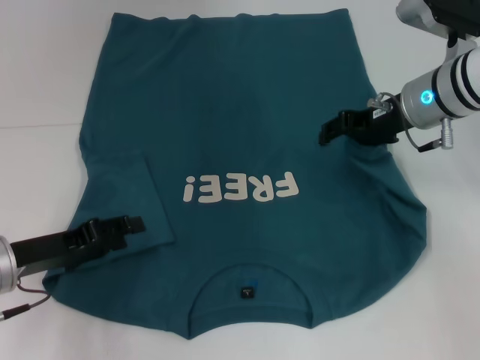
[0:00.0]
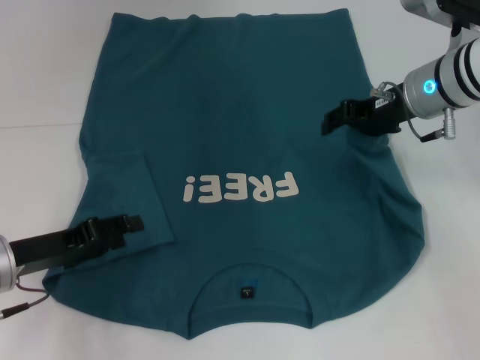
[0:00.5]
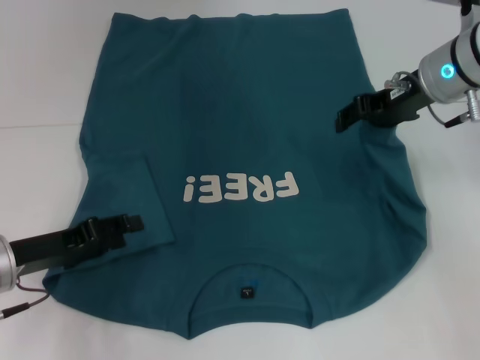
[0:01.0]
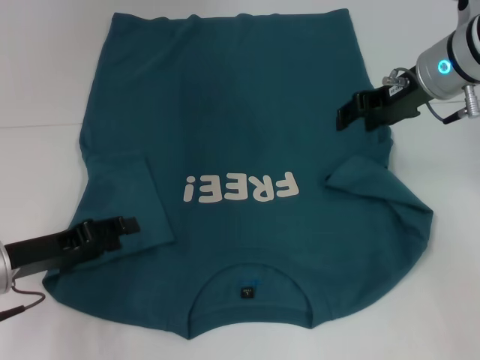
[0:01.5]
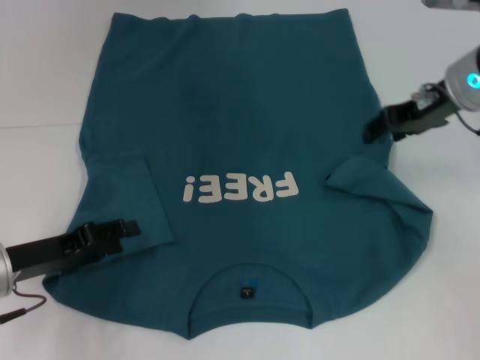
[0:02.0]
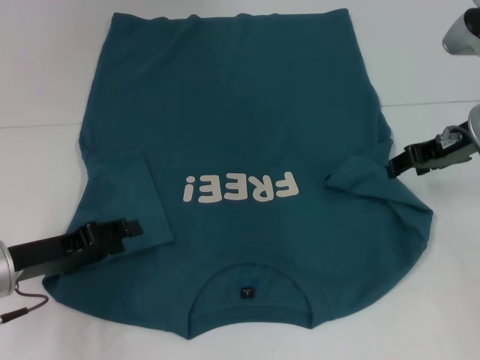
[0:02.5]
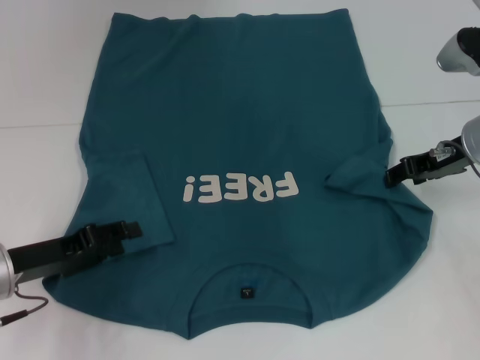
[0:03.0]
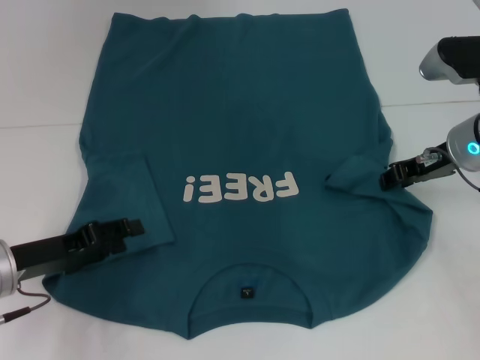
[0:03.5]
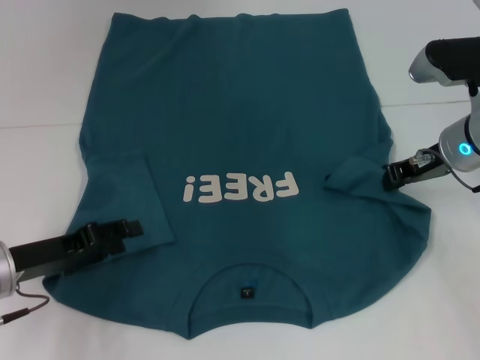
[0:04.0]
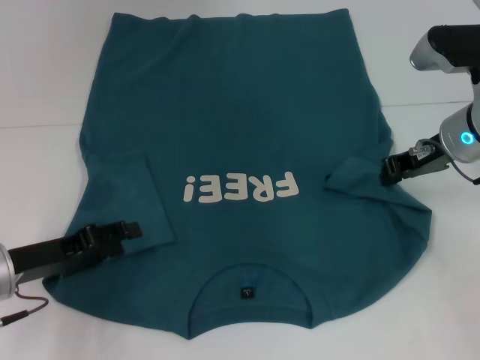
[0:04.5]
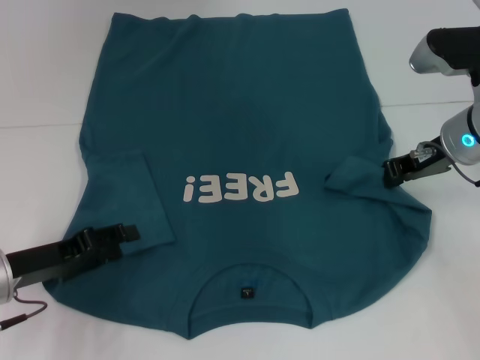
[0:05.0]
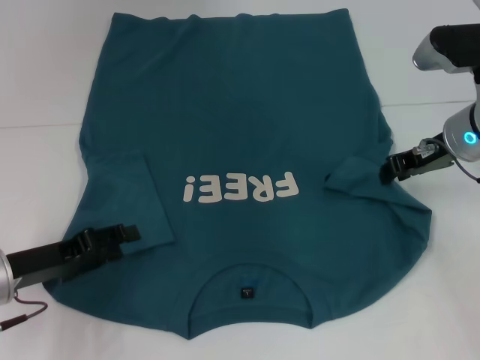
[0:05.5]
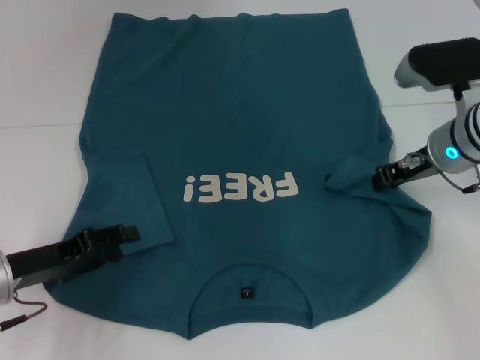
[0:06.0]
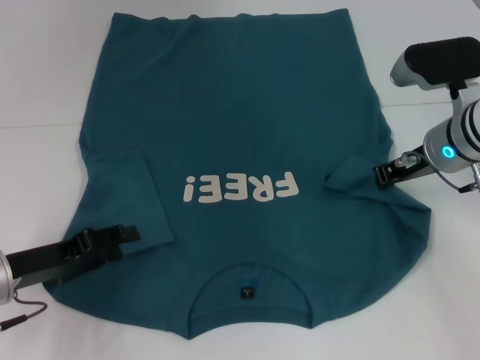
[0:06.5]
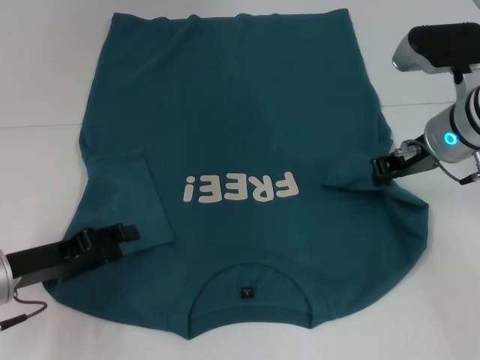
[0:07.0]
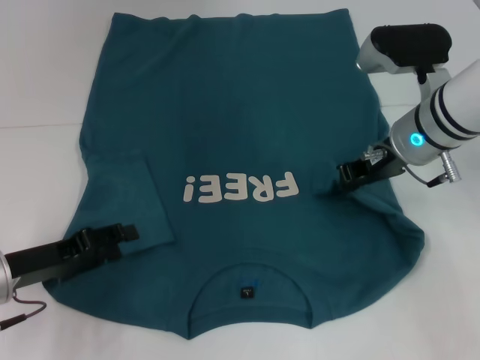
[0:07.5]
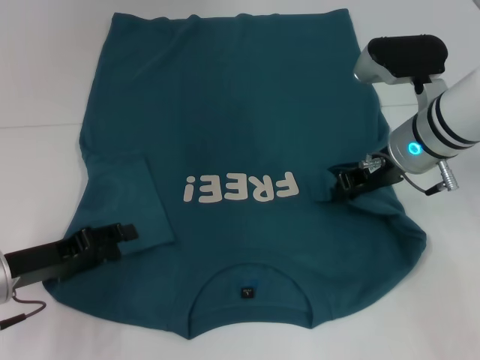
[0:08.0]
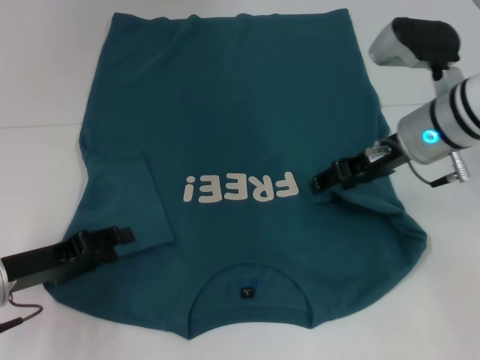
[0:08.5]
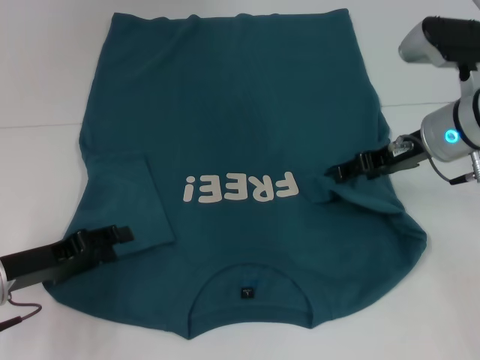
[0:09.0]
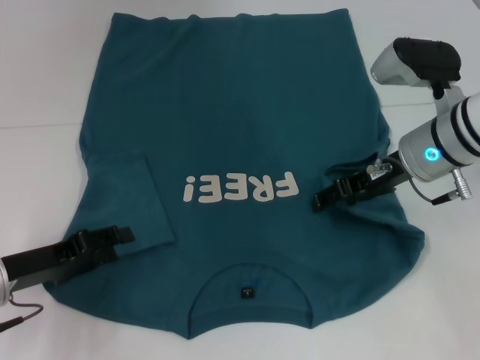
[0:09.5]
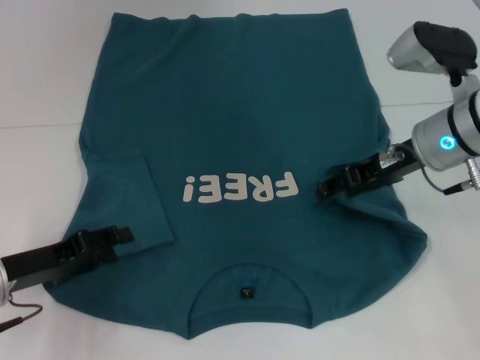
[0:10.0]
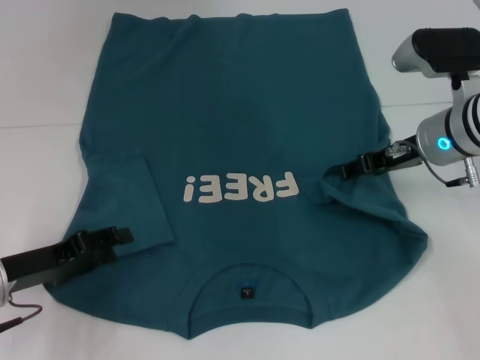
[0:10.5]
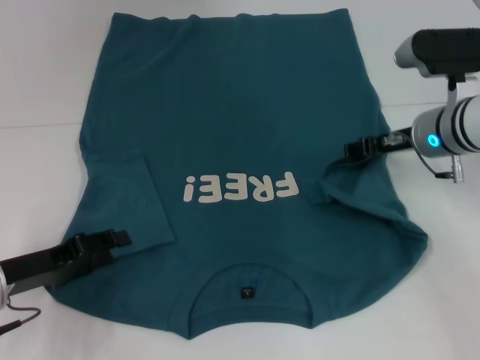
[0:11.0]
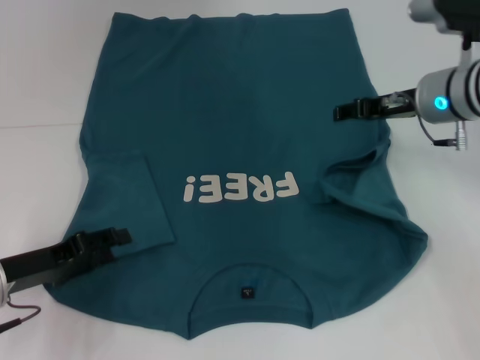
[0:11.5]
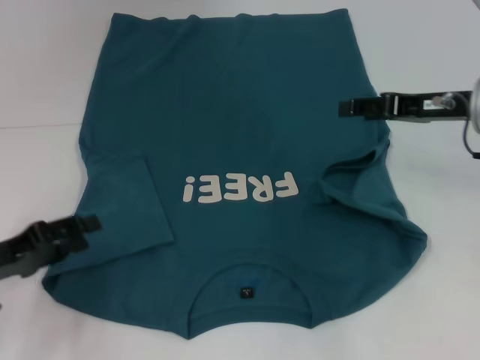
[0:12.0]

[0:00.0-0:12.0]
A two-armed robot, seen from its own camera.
0.0 to 2.0 s: The grippers move only a little.
2.0 to 4.0 s: The right gripper heads downward, covering roughly 5 cm, and closes up.
4.0 to 6.0 s: The grippers move only a little.
6.0 to 8.0 s: There are only small adjustments of the grippers.
8.0 to 10.0 s: The right gripper opens up.
10.0 to 12.0 s: The right gripper heads to the right, covering some 5 cm.

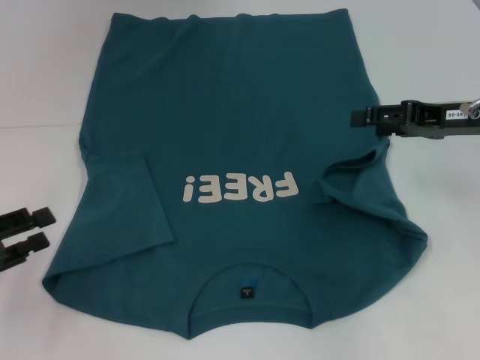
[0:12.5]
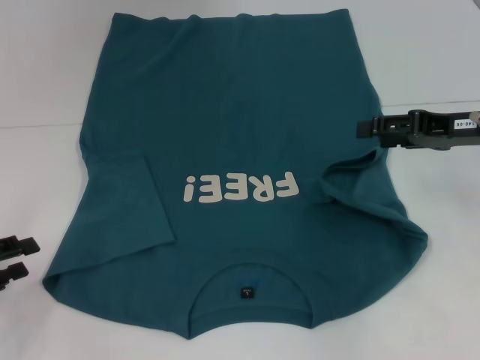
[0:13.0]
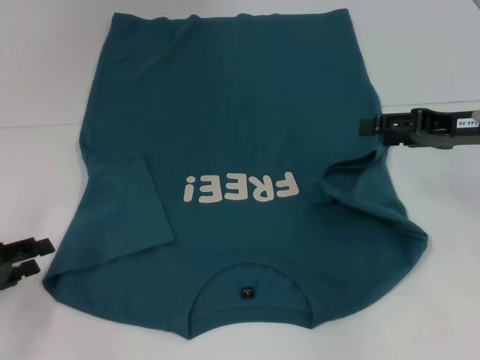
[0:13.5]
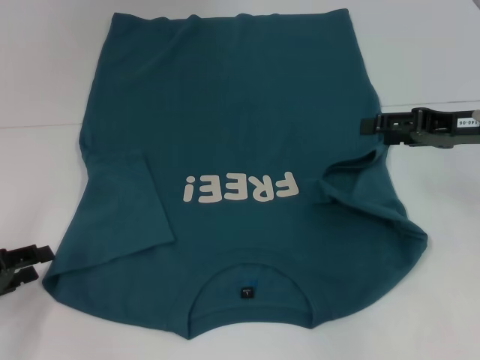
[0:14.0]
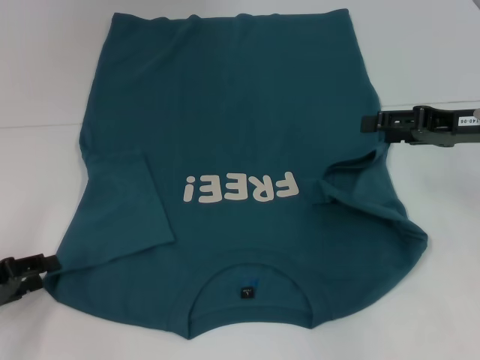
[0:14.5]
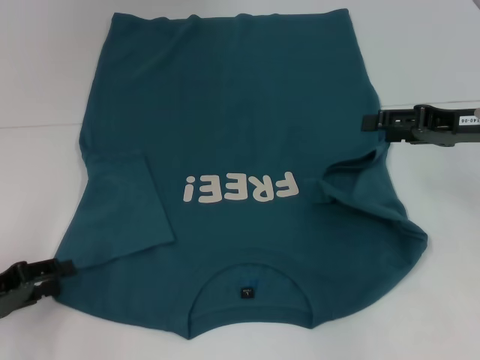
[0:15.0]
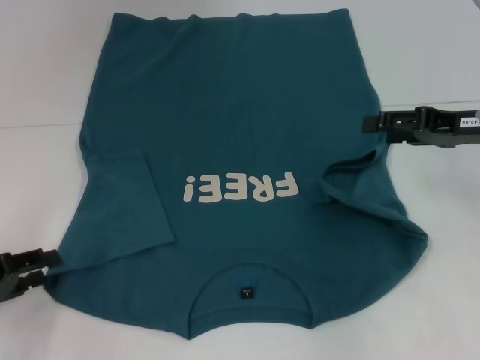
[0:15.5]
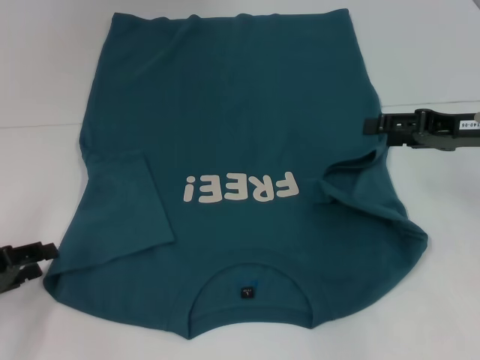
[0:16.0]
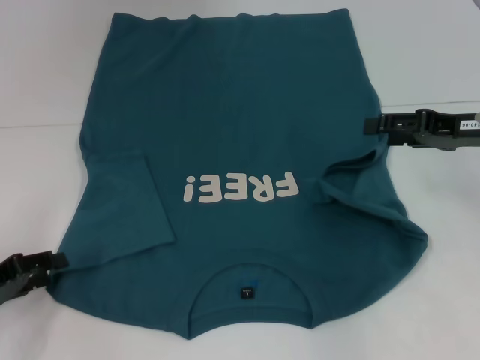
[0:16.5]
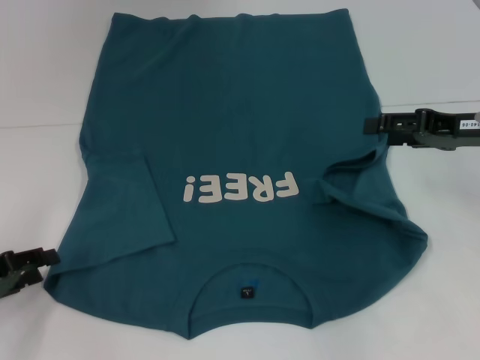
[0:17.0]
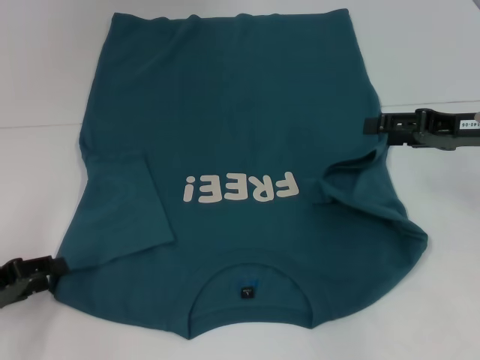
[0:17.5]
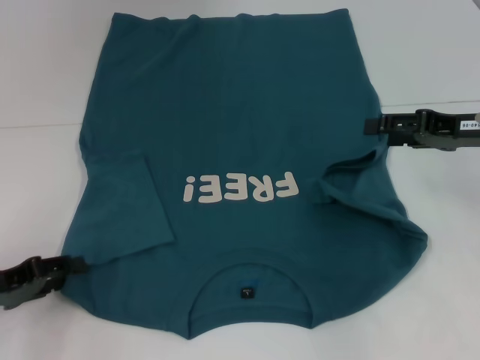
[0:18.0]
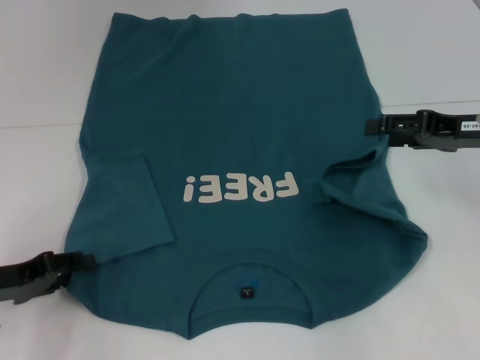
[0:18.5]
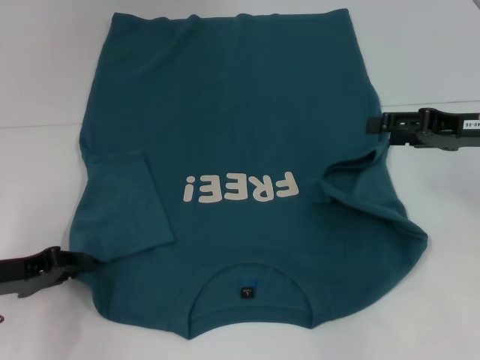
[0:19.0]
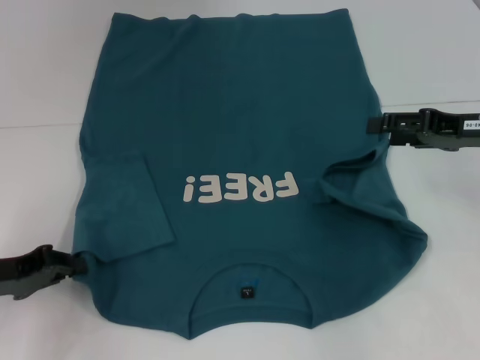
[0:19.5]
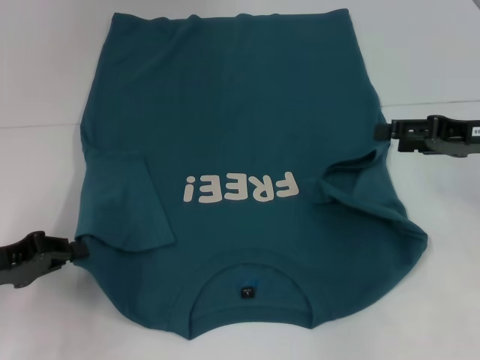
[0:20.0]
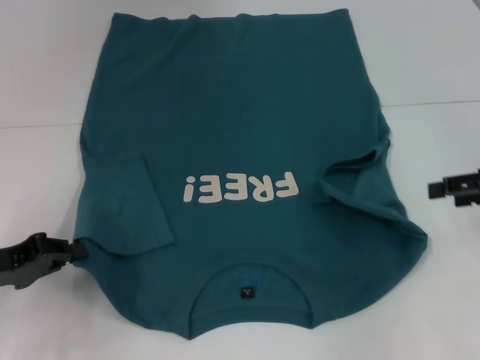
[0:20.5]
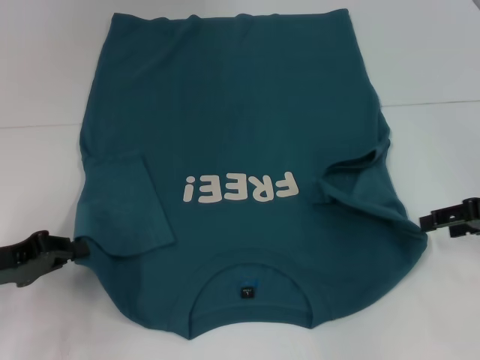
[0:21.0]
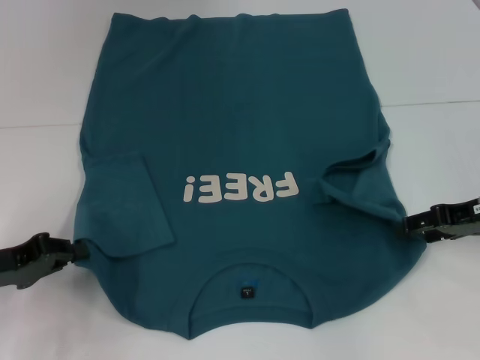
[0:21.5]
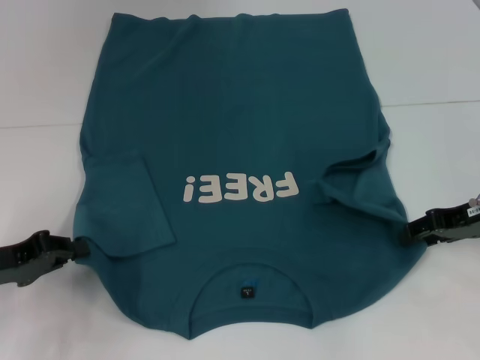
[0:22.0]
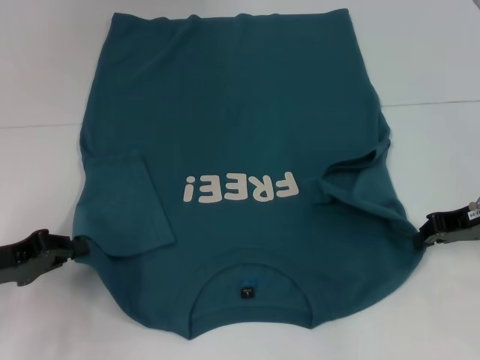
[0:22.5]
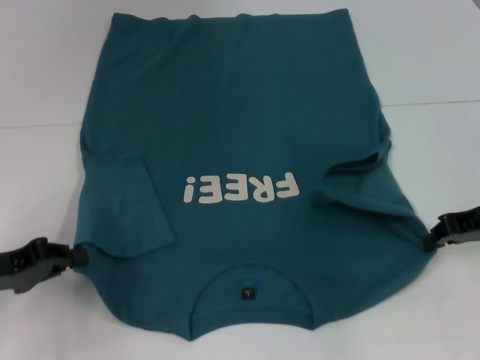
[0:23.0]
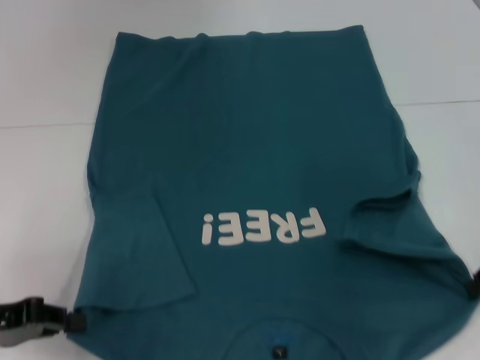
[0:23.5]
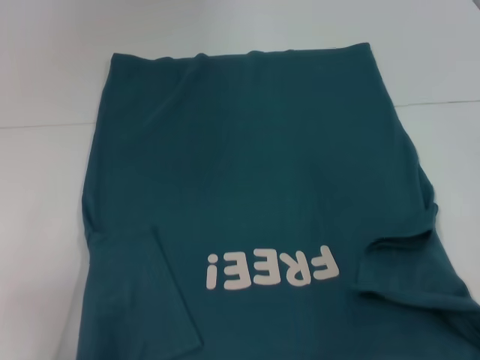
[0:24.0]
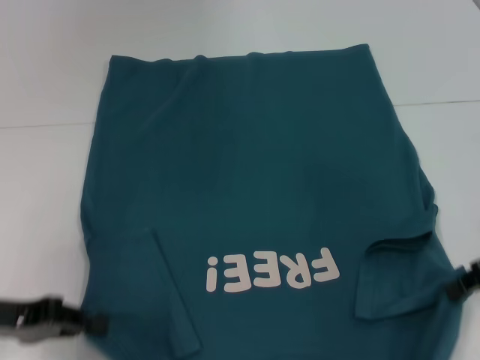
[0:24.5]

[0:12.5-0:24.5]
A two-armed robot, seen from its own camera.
Step, 13.0 to 20.0 s: Grab the bottom left corner with your left hand.
Step, 20.5 to 23.0 s: Grab the bottom right corner with your right hand.
12.5 to 16.5 s: The grippers move only a little.
16.5 to 18.5 s: The grippers stay close to where they were, moving slightly.
18.5 to 20.5 s: The right gripper travels to the right by roughly 5 cm. Meanwhile the left gripper closes.
20.5 to 22.5 s: The right gripper shifts by roughly 5 cm, and closes up.
22.5 to 24.5 s: The right gripper heads backward, covering about 5 cm.

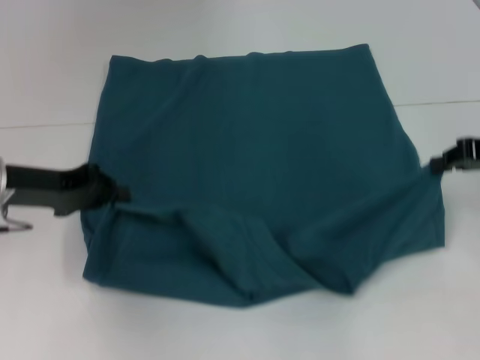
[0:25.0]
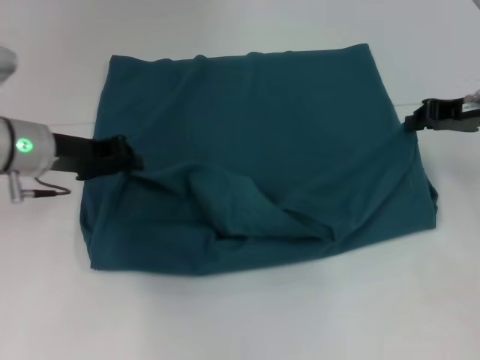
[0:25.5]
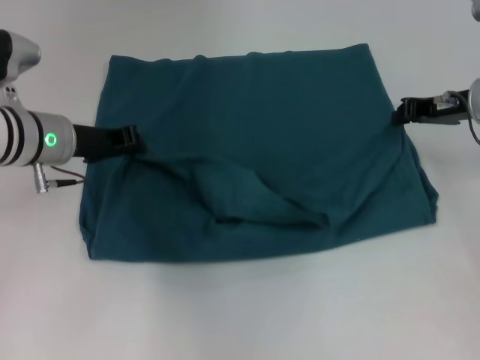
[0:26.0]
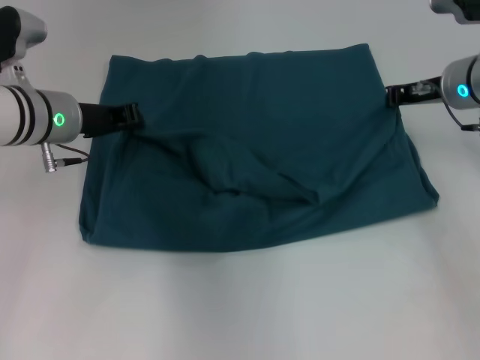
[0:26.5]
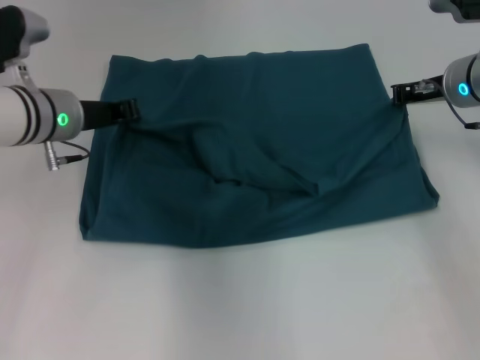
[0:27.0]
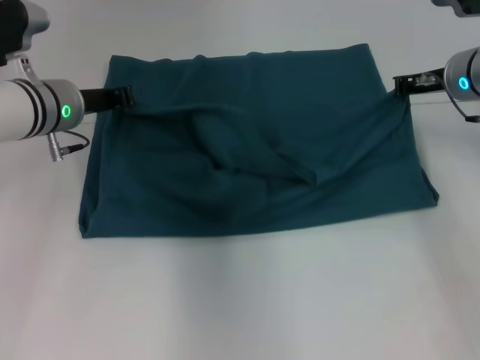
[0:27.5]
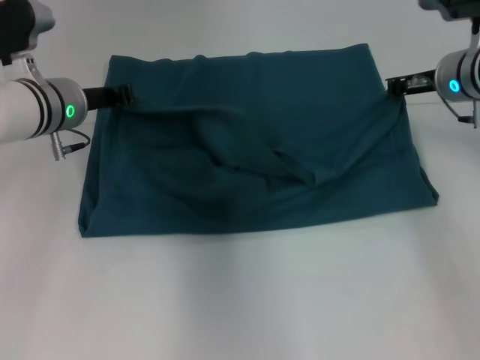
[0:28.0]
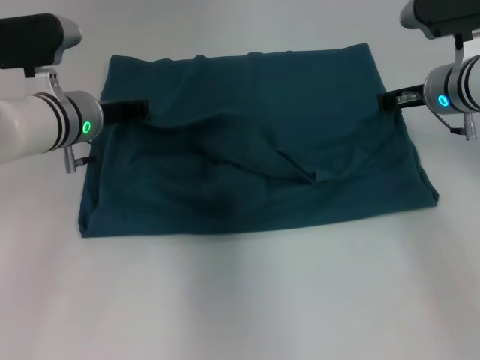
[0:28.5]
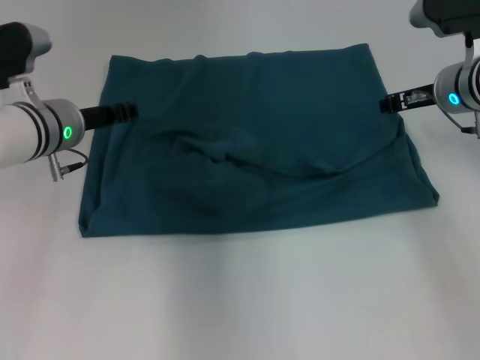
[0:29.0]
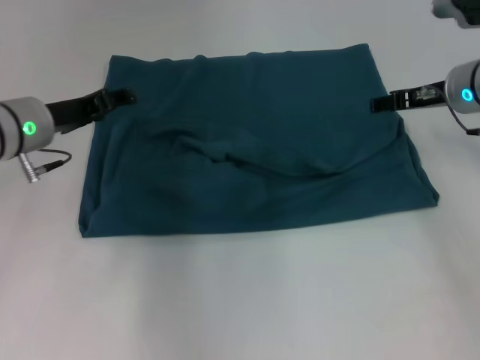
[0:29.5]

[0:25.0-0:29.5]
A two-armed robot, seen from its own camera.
Step, 25.0 to 29.0 s: Fold the clothes to the left.
Step, 25.0 to 29.0 s: Fold the clothes to the right.
25.0 to 27.0 s: The left gripper is displaced forward and to the right by about 10 cm; the right gripper travels forward and to the left by approximately 10 cm.
27.0 to 29.5 s: The right gripper opens up; the left gripper opens its fingers.
